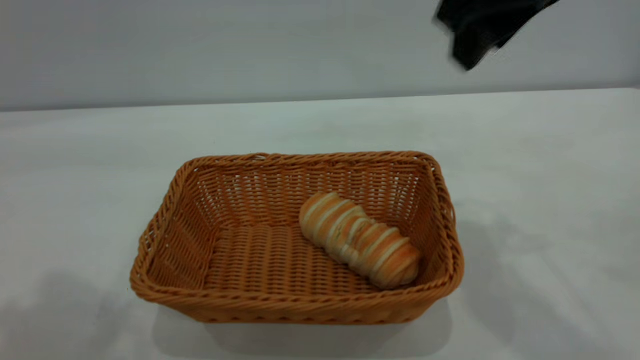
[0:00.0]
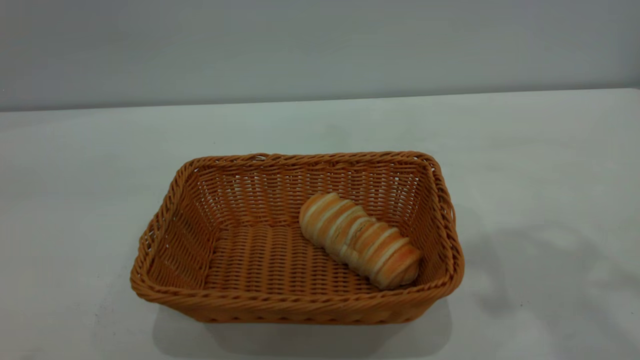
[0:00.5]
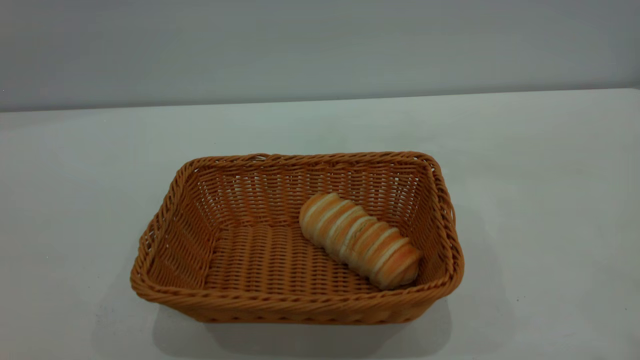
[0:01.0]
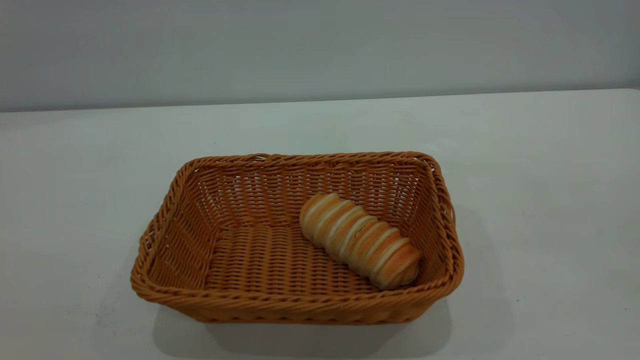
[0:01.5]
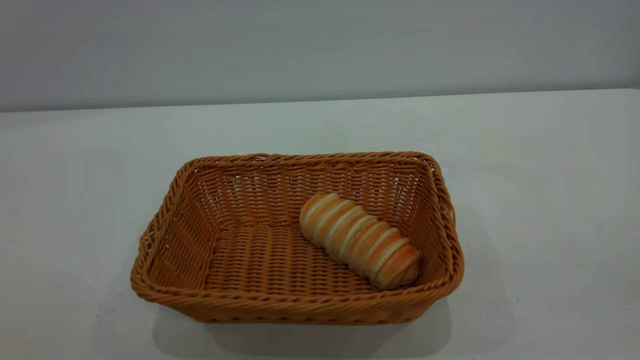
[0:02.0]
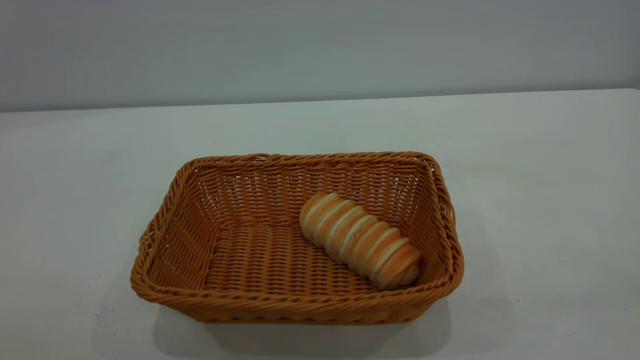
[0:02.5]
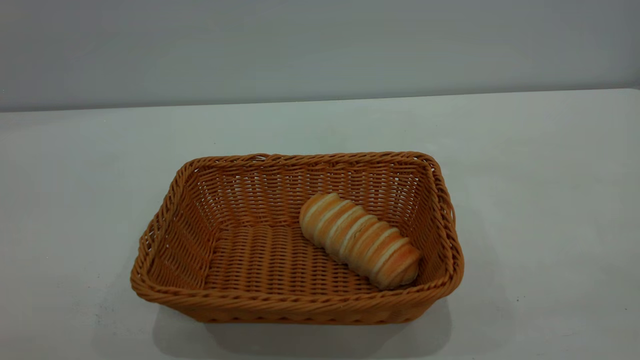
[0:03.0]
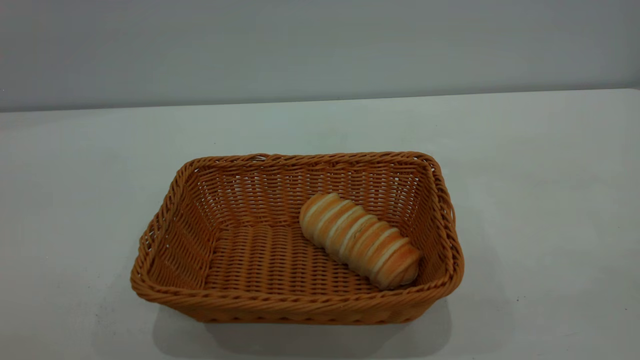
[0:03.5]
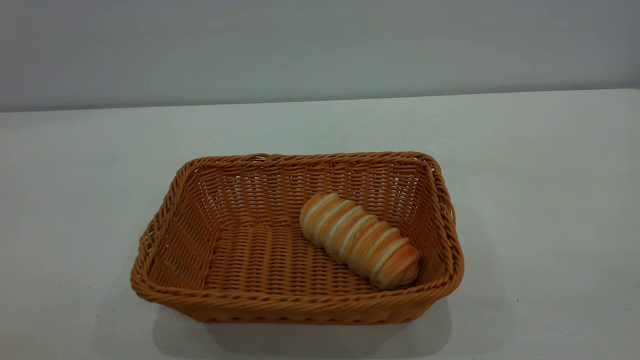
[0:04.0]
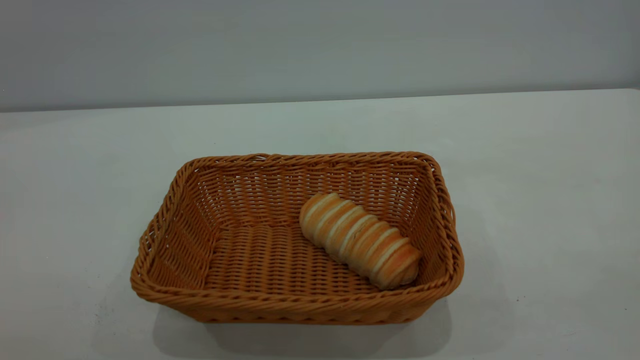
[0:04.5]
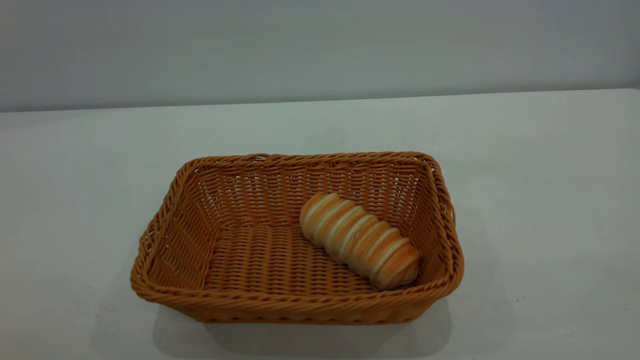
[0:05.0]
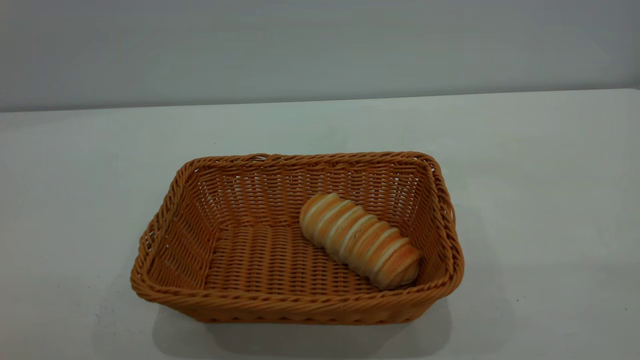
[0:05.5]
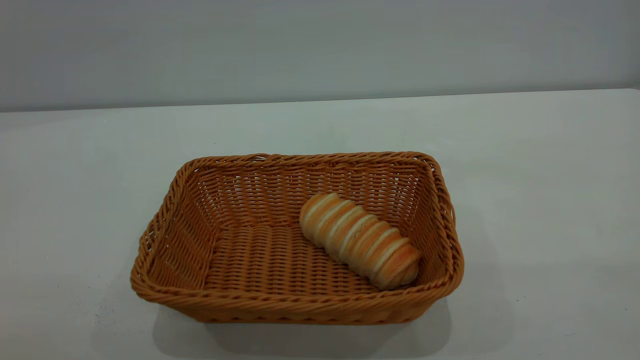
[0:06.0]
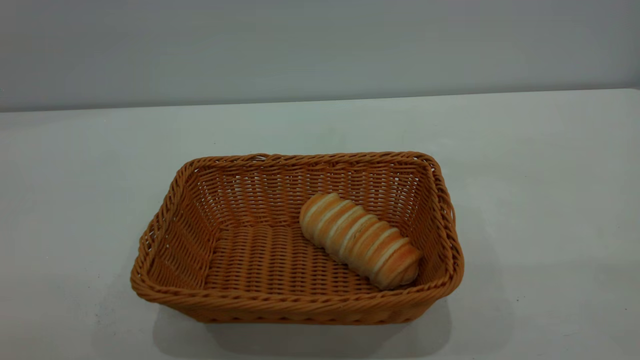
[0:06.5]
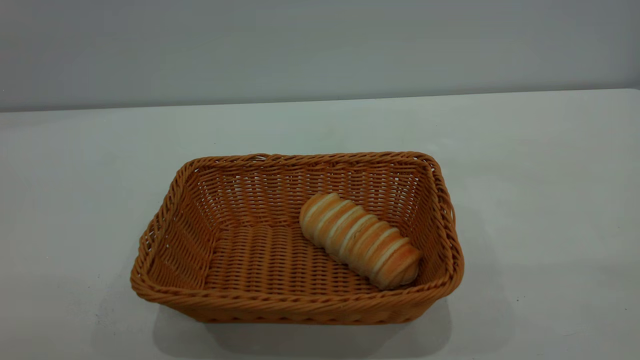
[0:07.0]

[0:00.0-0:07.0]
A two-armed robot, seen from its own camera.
Task of the whole recording: One hand grasps the yellow basket and places it in the middle of the table, while the other hand picks up the long bread and puts it into the yellow basket.
0:00.0 to 0:02.0: The right gripper is displaced backward and to the right by some 35 cm.
